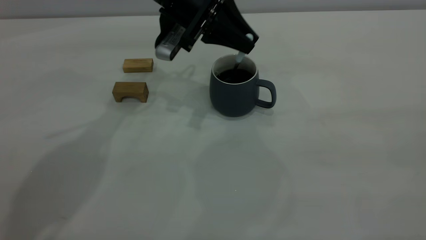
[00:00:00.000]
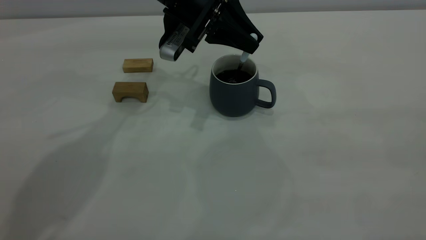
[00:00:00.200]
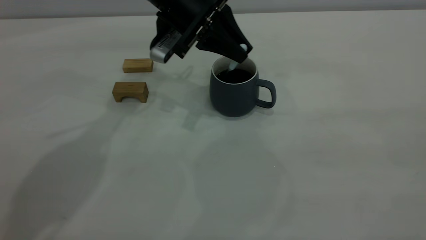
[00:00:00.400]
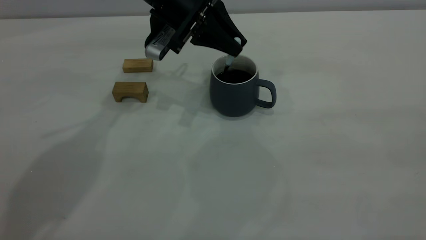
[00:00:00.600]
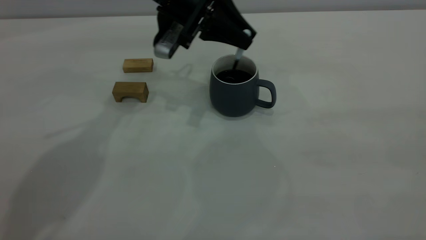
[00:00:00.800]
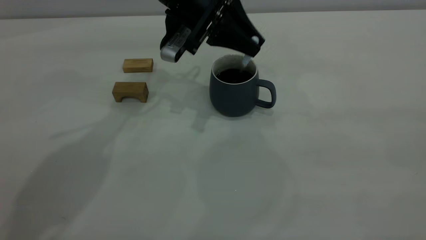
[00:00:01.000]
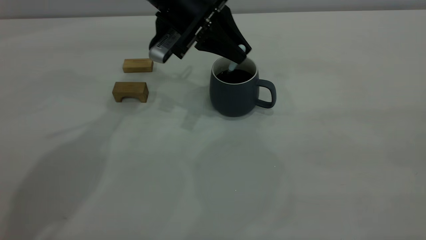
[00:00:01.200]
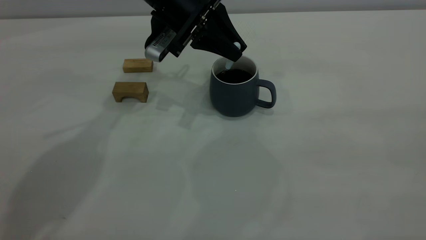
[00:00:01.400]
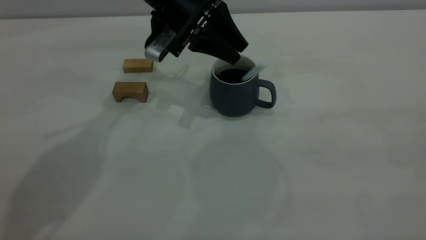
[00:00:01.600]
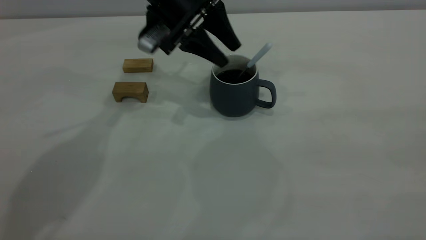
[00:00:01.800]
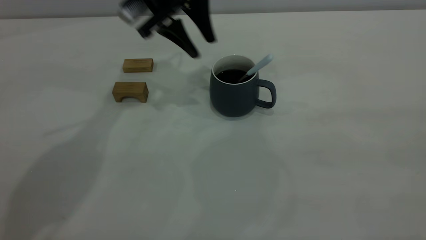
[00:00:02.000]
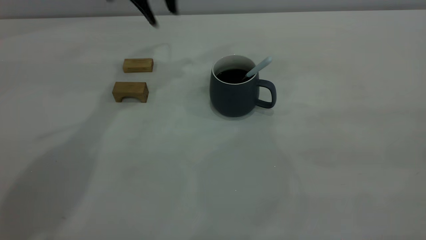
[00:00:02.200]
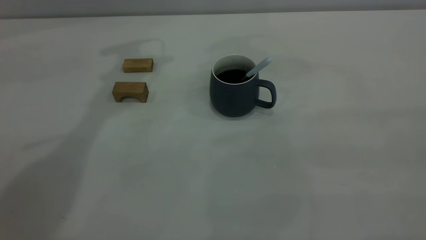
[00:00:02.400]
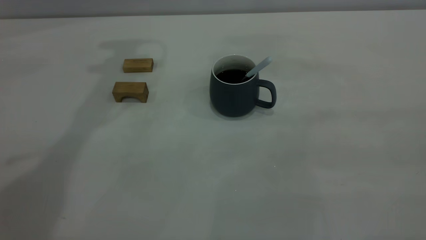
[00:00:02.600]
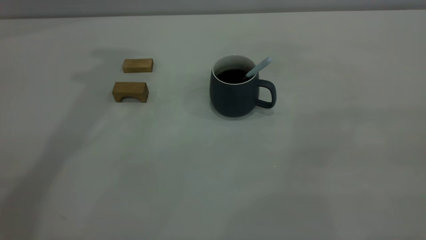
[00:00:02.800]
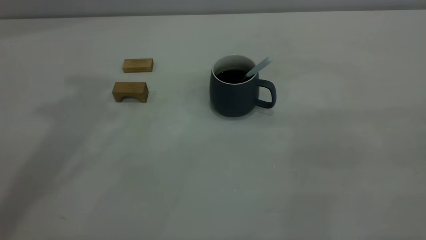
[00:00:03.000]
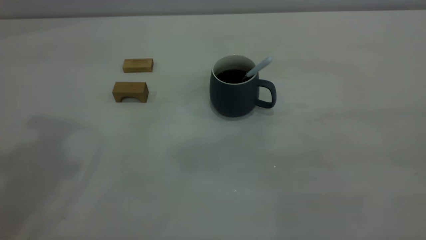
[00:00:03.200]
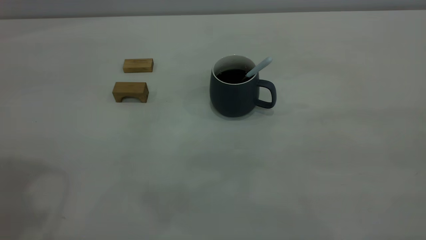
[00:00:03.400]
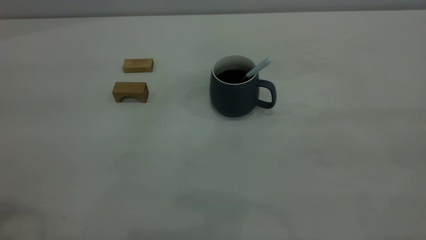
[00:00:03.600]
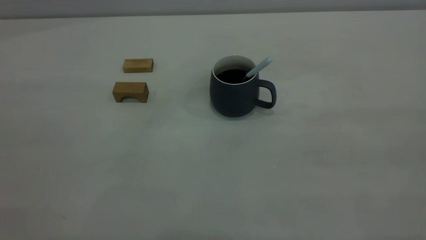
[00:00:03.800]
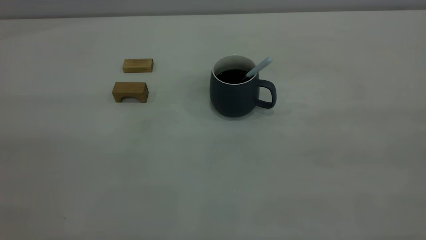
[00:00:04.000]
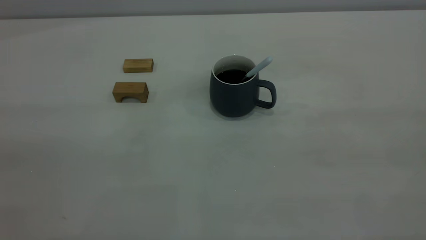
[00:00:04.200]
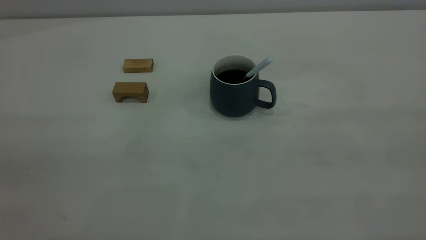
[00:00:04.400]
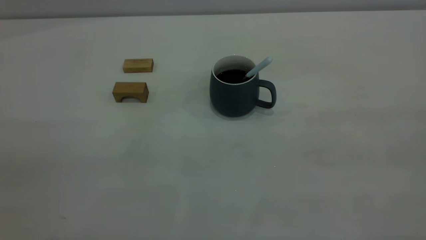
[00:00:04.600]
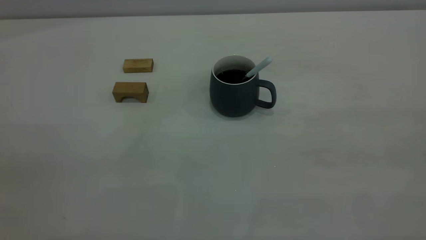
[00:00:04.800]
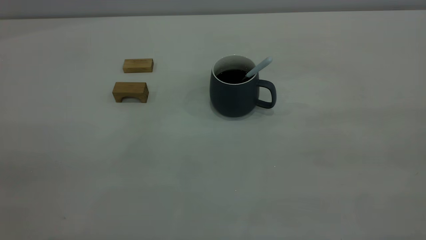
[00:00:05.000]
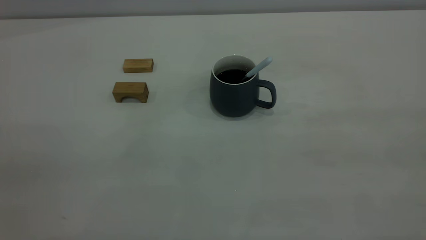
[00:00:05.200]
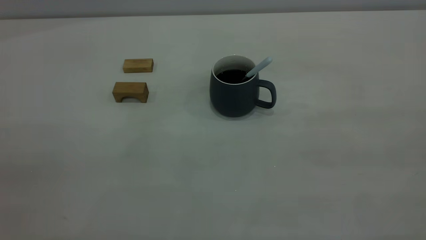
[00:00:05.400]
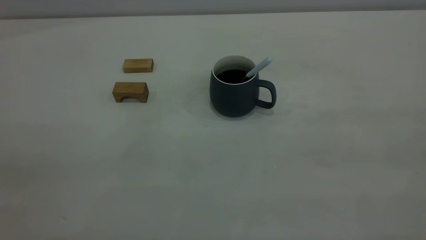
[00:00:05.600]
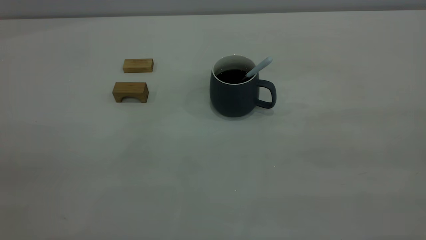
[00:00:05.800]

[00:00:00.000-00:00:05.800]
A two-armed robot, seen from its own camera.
00:00:00.000 to 00:00:01.400: The grippers move only a little.
00:00:01.400 to 00:00:02.800: The left gripper travels upward by roughly 30 cm, and opens up.

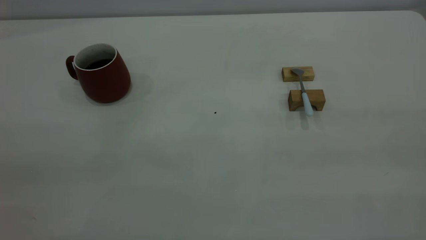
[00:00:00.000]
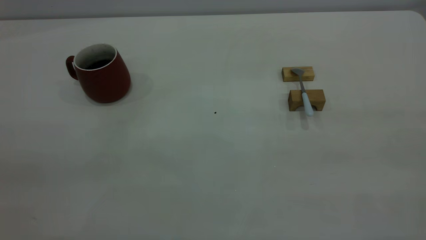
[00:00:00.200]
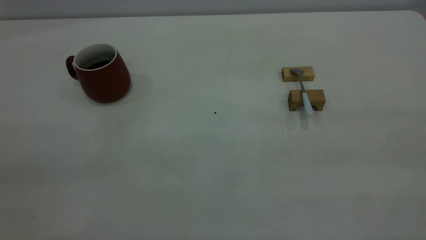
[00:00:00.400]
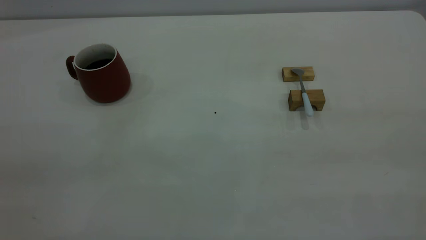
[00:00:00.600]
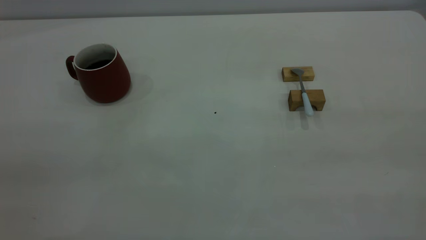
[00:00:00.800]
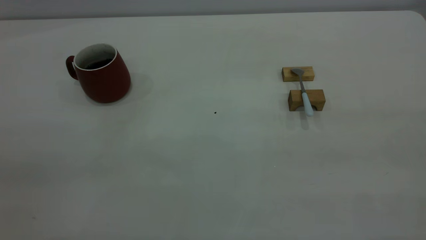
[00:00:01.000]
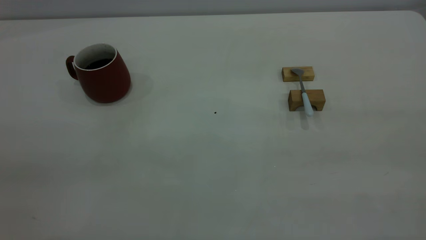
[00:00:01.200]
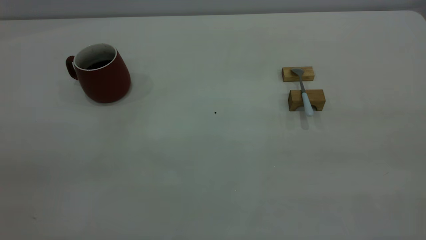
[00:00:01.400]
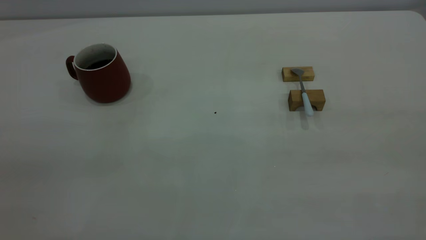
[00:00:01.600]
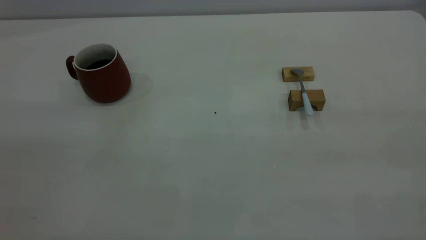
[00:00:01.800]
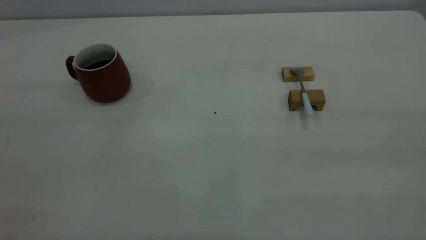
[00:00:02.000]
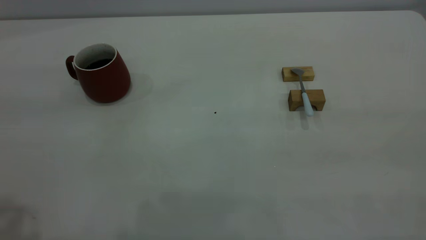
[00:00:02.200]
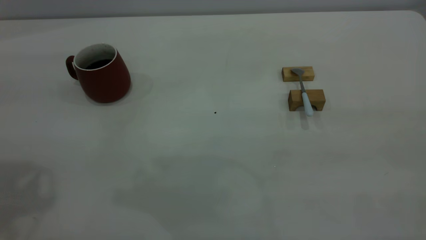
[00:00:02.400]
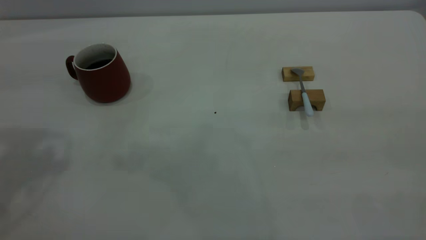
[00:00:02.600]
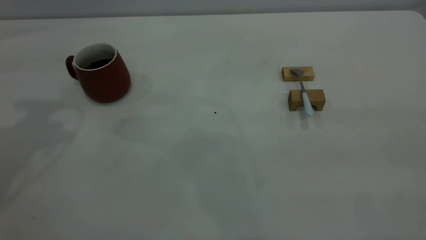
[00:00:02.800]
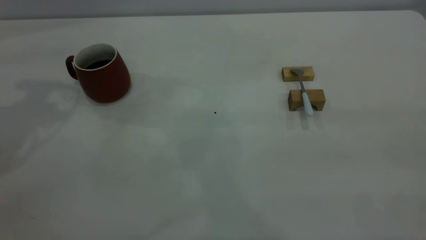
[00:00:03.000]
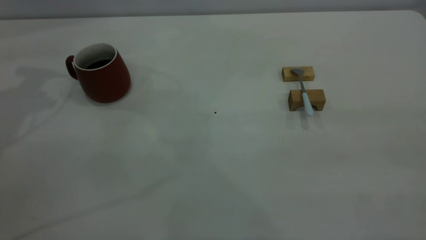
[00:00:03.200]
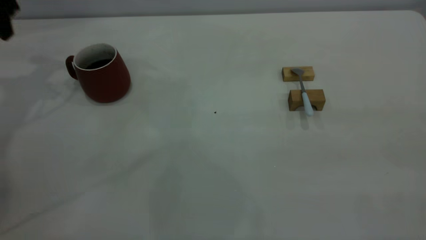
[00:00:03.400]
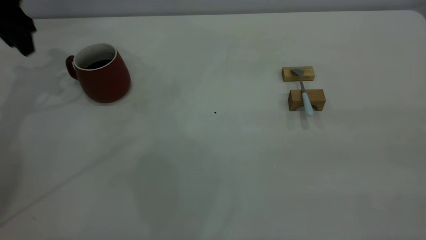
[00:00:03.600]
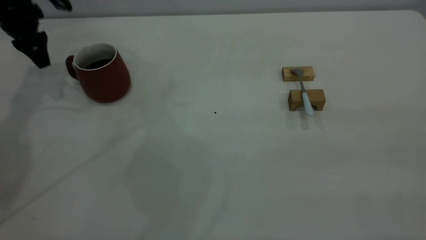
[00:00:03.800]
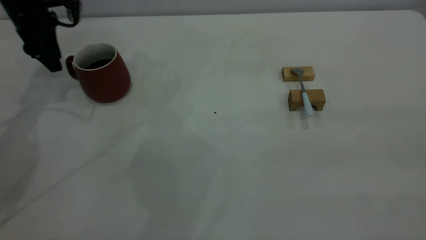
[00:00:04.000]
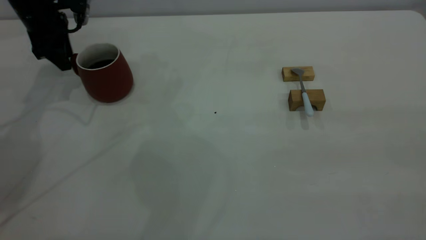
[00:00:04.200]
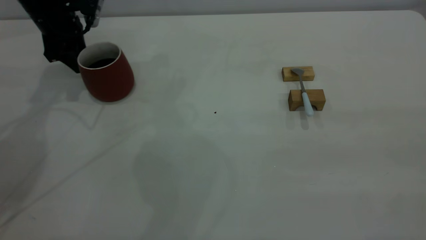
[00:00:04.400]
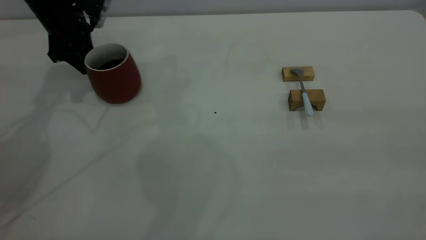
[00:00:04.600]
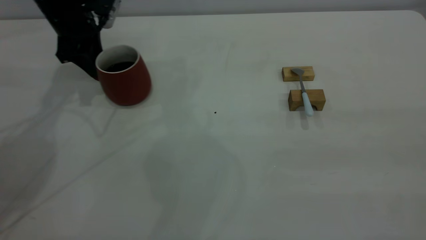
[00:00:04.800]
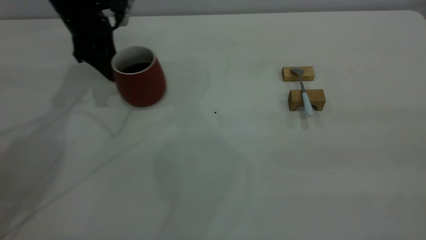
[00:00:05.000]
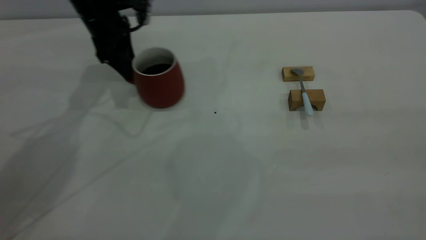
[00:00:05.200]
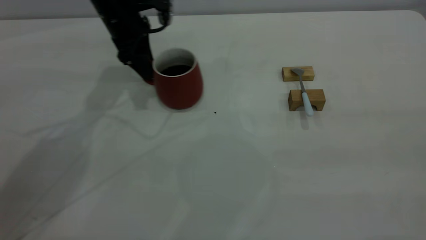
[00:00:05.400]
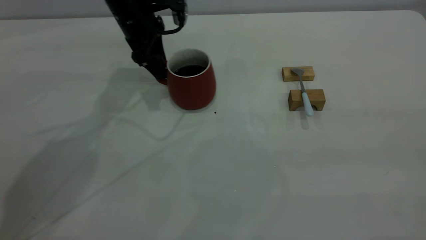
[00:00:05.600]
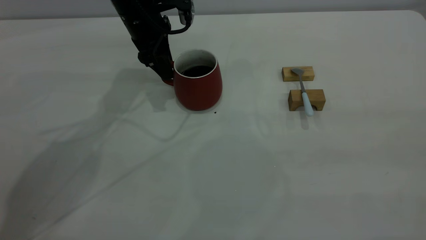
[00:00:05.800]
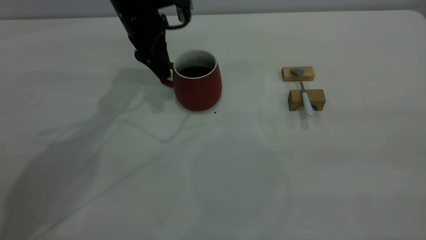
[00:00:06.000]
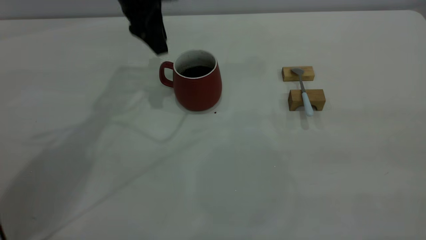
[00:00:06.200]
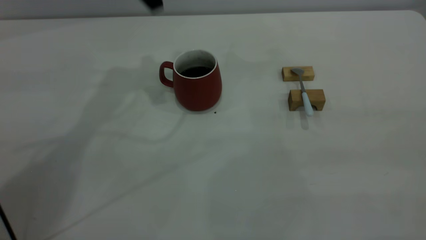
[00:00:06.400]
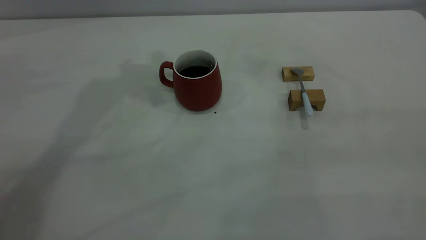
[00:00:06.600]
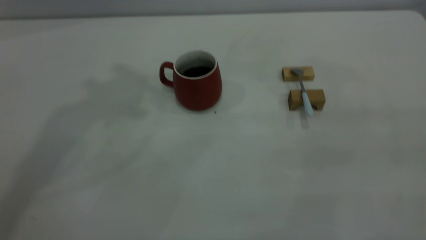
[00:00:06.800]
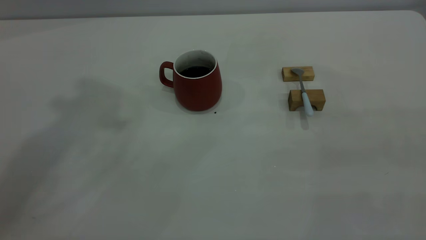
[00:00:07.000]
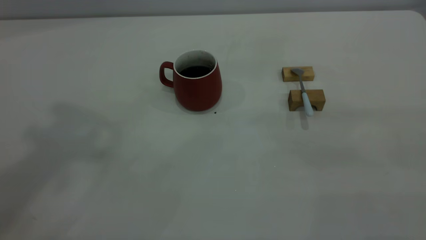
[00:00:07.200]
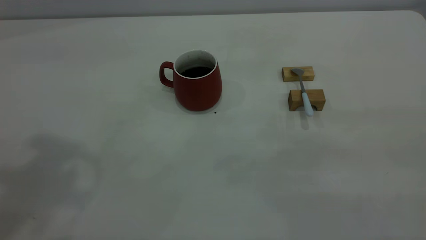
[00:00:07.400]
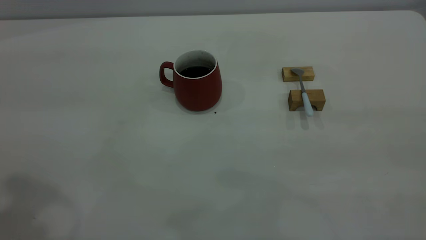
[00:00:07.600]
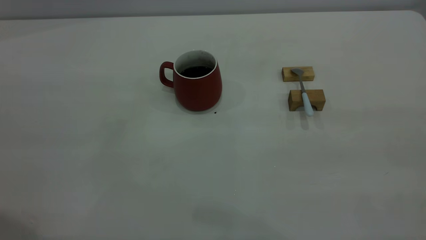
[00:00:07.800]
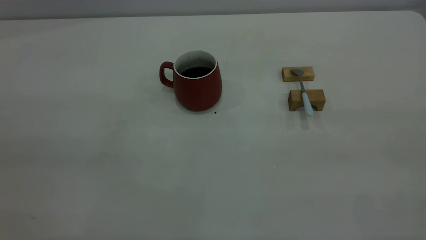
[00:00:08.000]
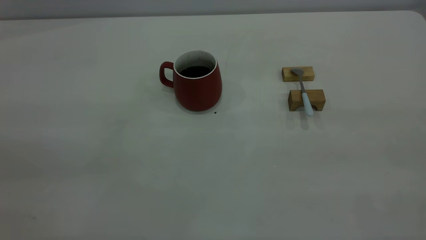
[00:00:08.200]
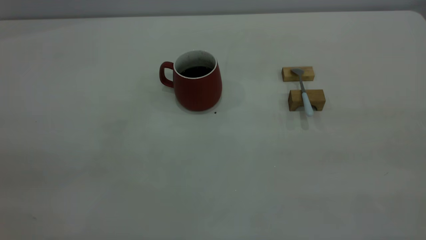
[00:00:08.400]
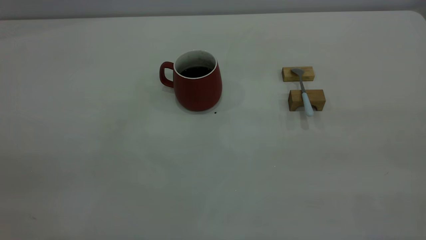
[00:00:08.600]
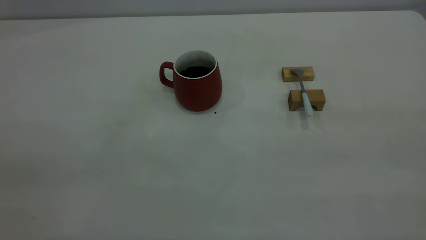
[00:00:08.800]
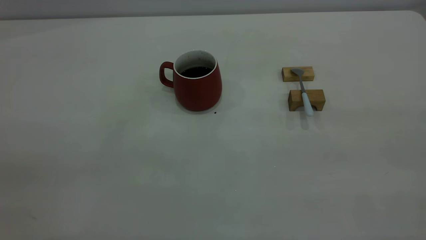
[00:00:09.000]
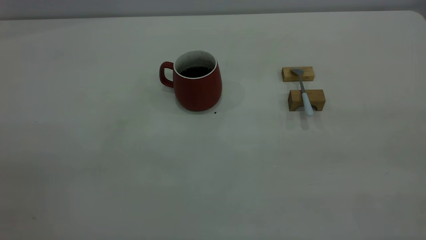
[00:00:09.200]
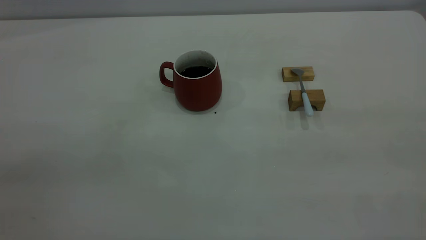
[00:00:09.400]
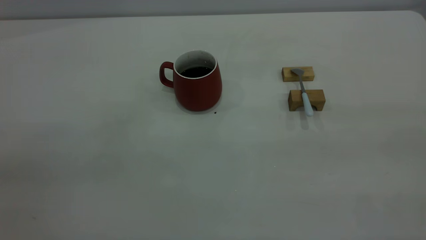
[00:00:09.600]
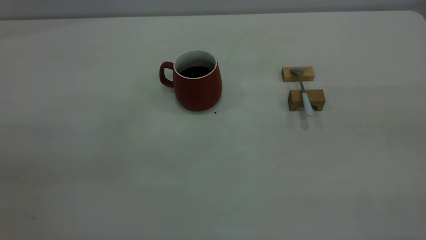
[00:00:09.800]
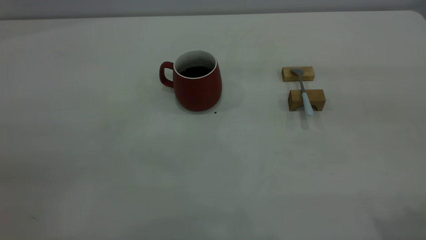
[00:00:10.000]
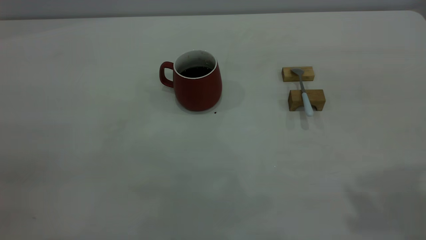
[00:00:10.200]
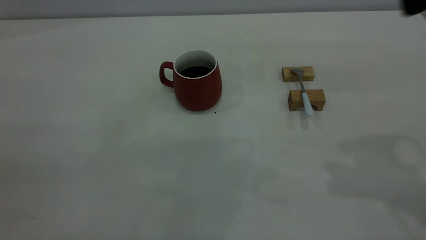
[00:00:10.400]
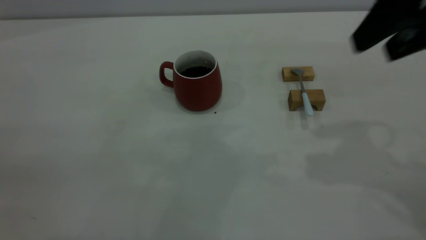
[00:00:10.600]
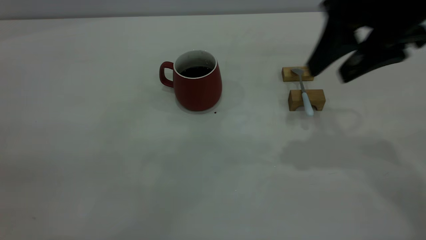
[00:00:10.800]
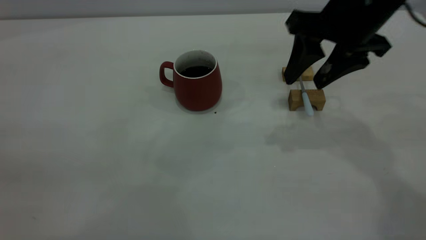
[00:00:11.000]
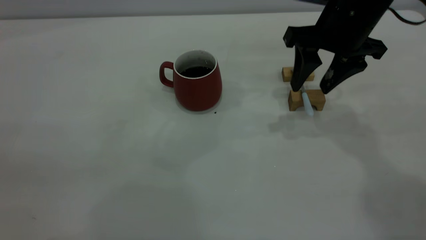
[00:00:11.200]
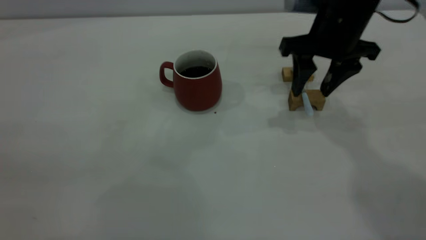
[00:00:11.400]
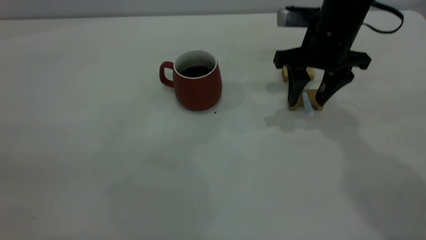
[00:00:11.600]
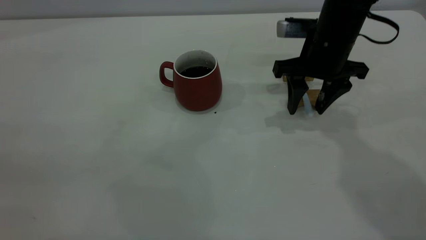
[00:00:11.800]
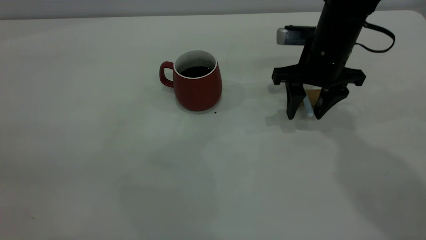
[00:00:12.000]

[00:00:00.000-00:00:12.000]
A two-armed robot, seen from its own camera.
Step, 00:00:00.000 to 00:00:06.000: Move the cup with coffee to the center of view.
00:00:03.000 to 00:00:04.400: The left gripper shifts some 20 cm downward and forward.
00:00:04.400 to 00:00:06.000: The left gripper shifts roughly 15 cm to the right.
00:00:06.000 to 00:00:07.600: The left gripper heads backward and upward, covering approximately 40 cm.
00:00:10.400 to 00:00:12.000: The right gripper moves downward, forward and to the left, roughly 30 cm.
